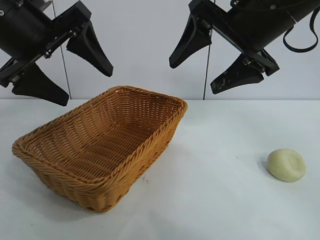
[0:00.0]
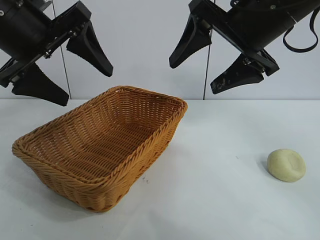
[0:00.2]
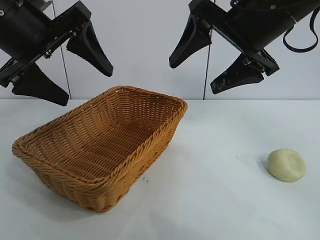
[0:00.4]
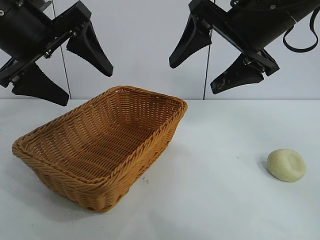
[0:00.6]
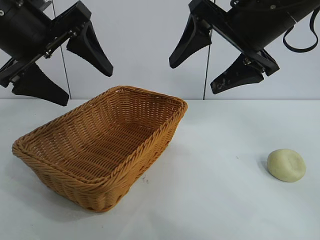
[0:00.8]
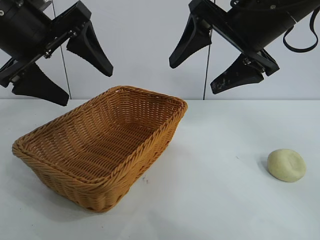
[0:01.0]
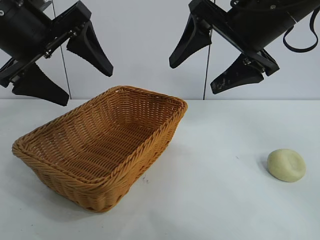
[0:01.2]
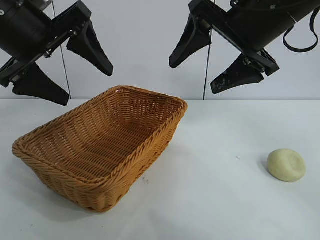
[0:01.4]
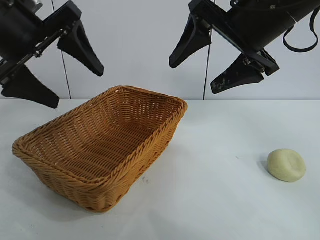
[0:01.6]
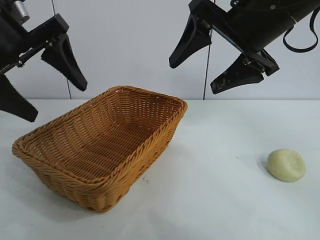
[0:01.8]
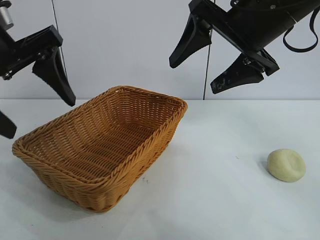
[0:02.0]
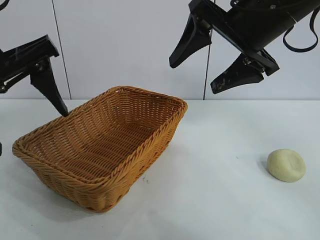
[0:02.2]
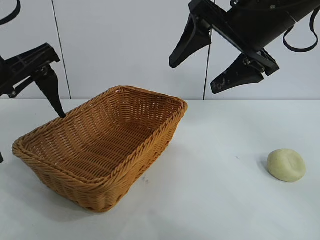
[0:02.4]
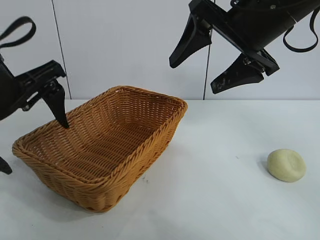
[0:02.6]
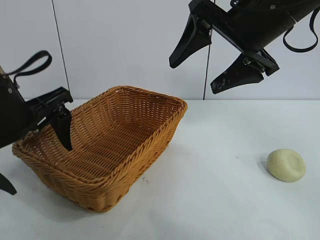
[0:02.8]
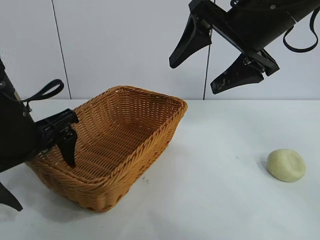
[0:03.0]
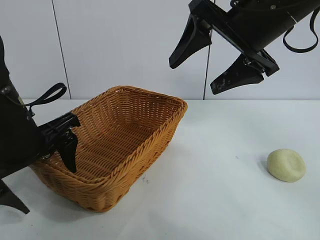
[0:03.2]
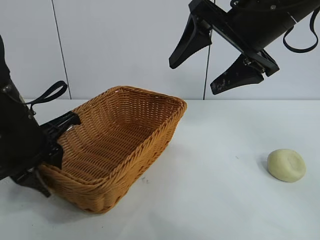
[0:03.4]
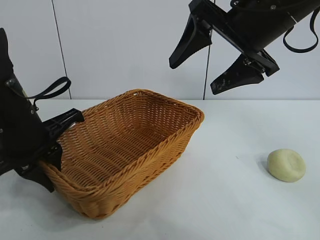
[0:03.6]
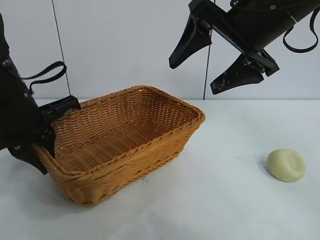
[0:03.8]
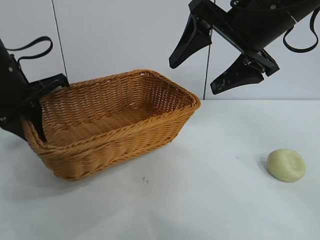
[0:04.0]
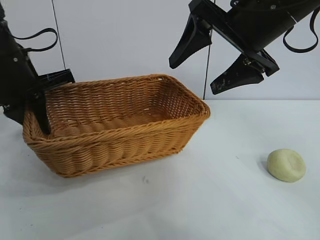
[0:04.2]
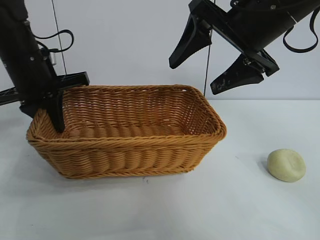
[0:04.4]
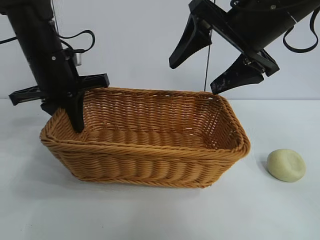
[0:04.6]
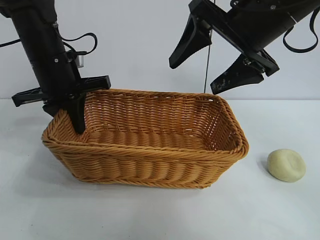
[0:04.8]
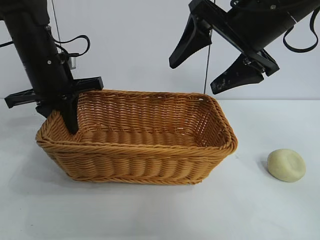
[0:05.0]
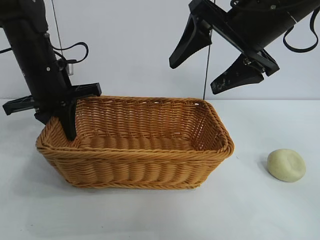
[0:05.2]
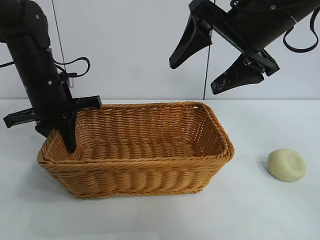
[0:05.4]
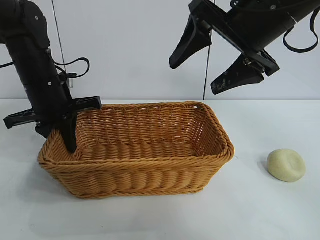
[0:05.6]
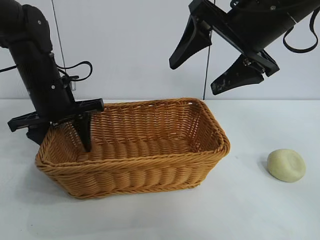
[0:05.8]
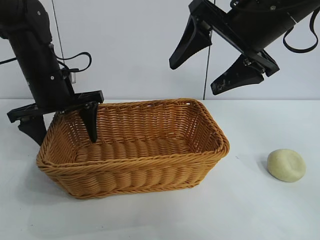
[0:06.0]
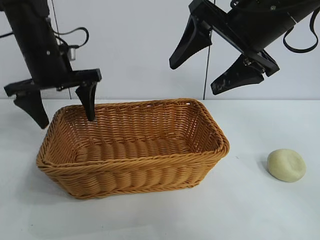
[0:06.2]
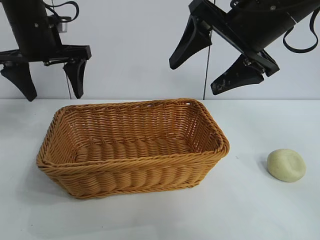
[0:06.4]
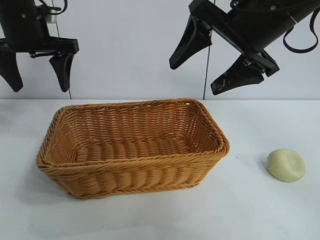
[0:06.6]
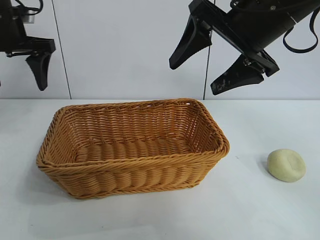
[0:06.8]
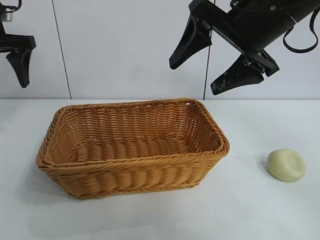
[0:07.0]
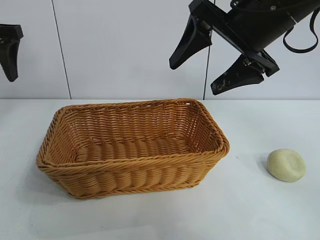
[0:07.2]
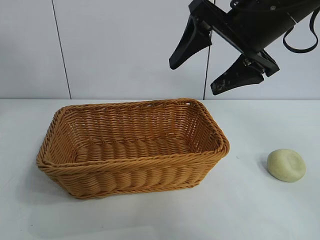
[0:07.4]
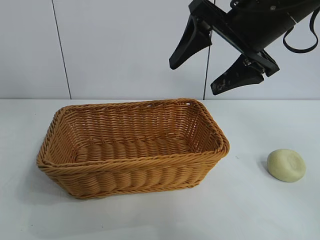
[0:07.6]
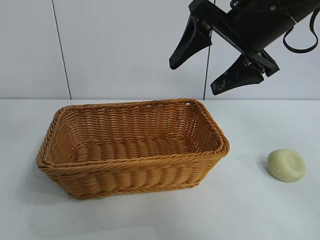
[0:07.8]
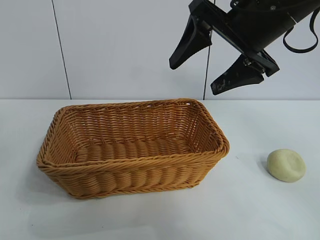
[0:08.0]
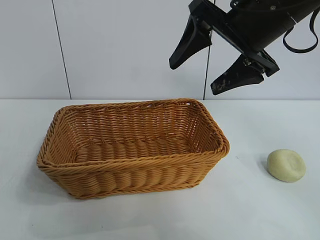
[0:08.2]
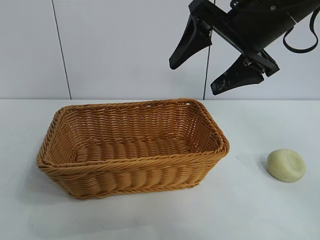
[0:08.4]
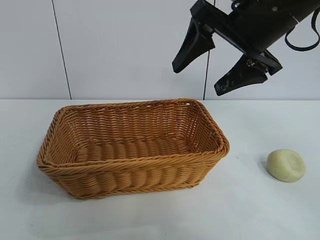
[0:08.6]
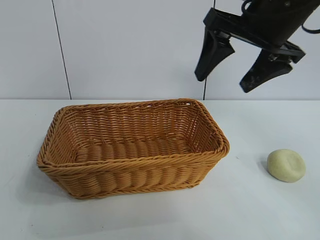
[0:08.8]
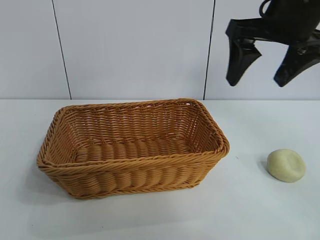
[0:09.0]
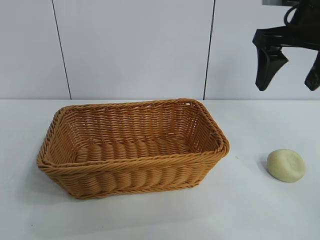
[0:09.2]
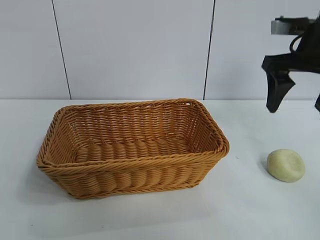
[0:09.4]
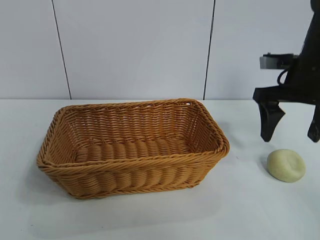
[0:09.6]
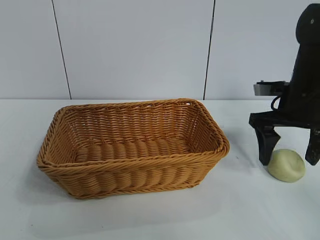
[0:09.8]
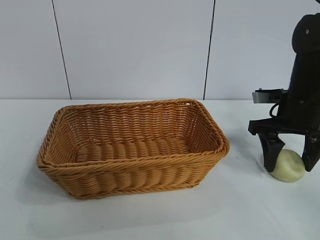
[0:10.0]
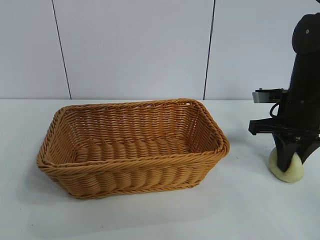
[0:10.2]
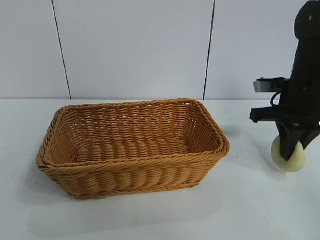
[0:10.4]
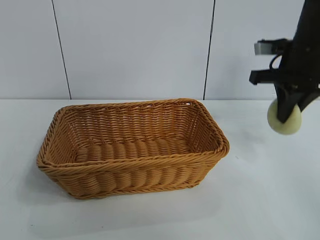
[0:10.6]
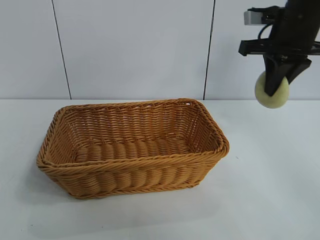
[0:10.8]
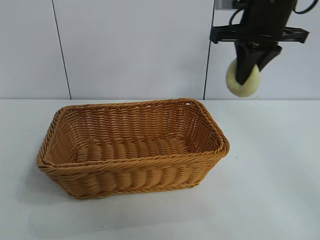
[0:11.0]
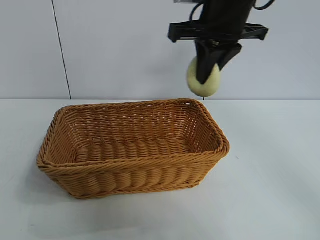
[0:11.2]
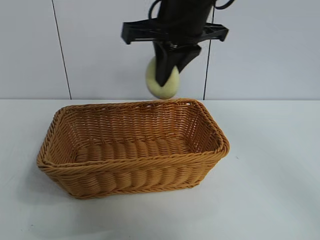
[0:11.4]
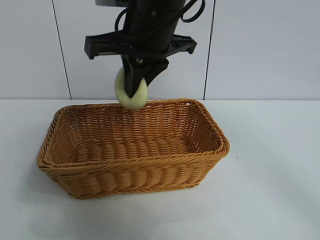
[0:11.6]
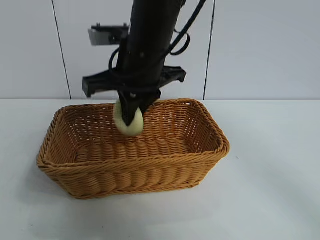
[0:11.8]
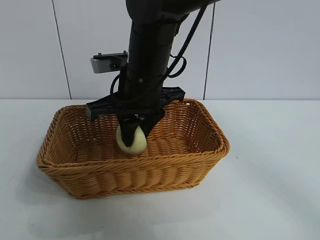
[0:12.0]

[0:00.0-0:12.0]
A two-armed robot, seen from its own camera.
Task of the whole recording: pick up the egg yolk pastry and put it into the basket.
Step, 0:01.4 to 0:03.4: Grasp the basket with left gripper.
Step, 0:03.6 to 0:05.8: Place the basket in the center of view with left gripper.
Step, 0:06.0 to 0:10.0: Grasp egg yolk pastry with right gripper.

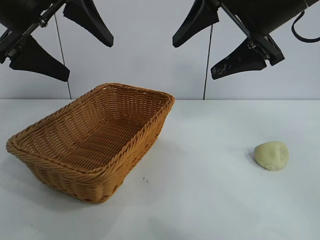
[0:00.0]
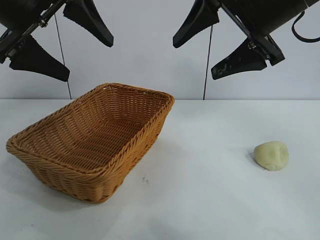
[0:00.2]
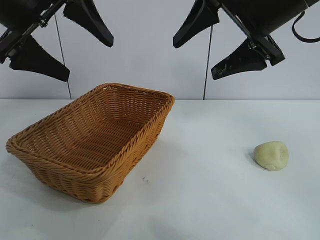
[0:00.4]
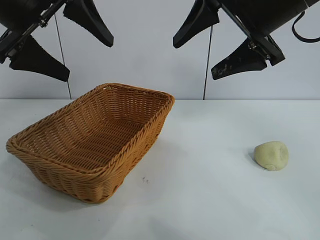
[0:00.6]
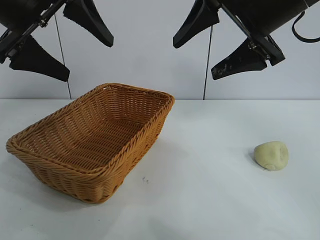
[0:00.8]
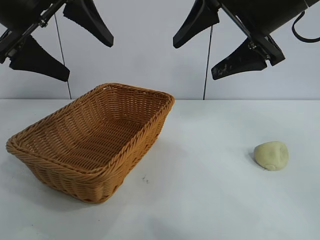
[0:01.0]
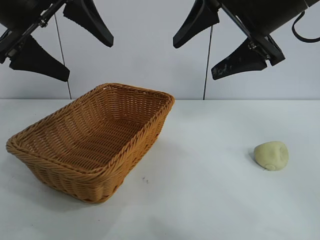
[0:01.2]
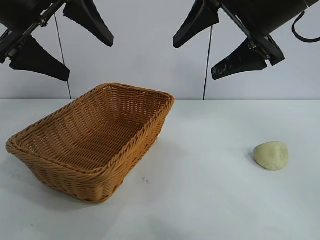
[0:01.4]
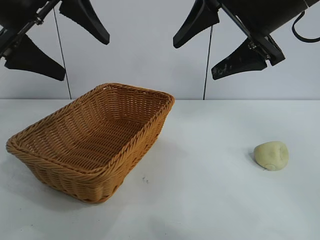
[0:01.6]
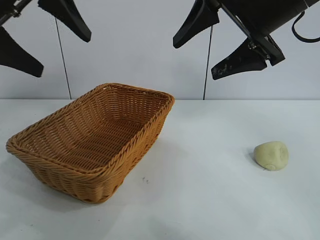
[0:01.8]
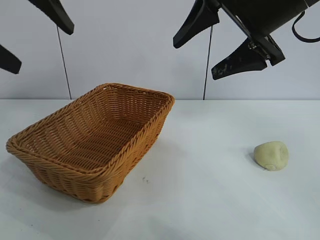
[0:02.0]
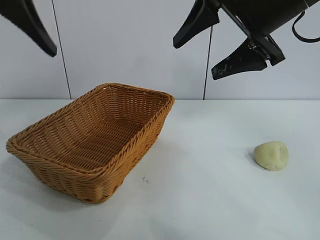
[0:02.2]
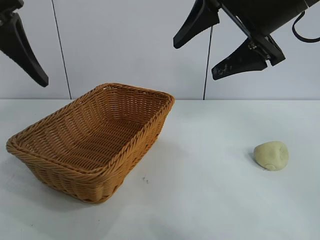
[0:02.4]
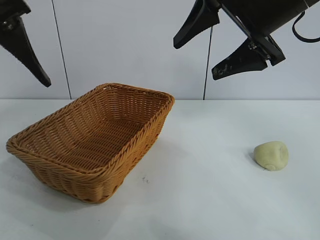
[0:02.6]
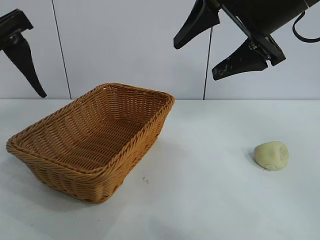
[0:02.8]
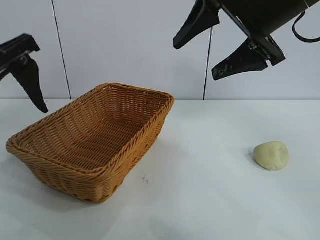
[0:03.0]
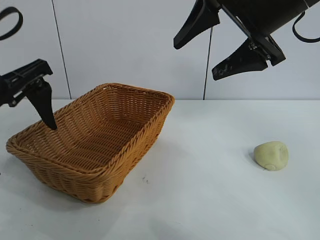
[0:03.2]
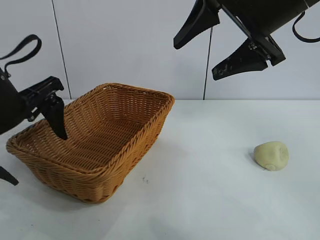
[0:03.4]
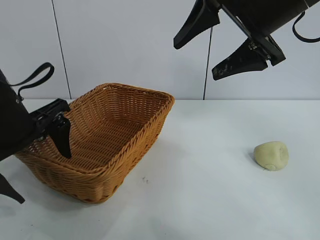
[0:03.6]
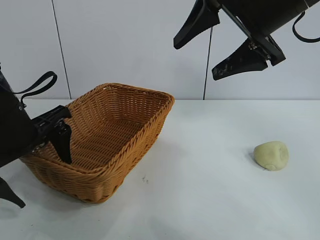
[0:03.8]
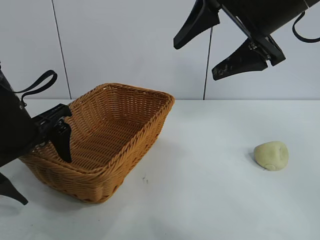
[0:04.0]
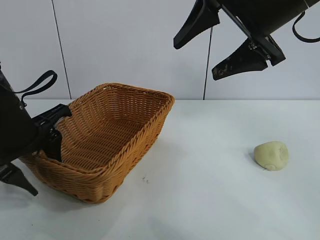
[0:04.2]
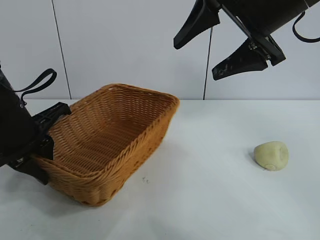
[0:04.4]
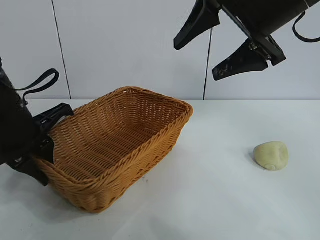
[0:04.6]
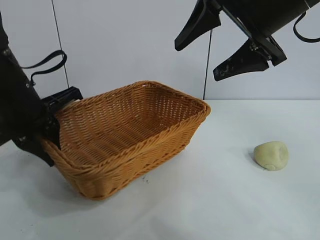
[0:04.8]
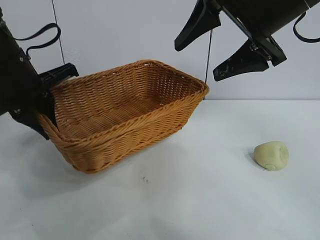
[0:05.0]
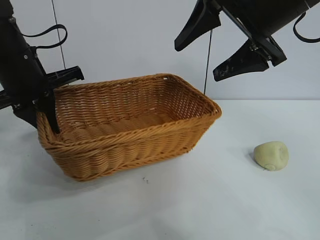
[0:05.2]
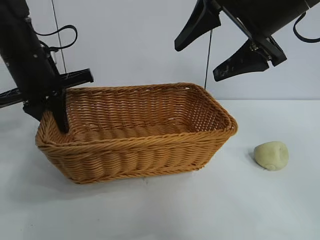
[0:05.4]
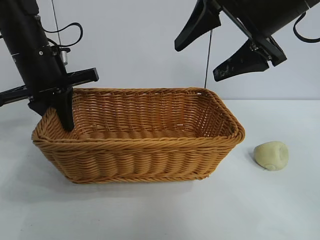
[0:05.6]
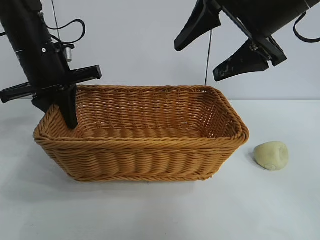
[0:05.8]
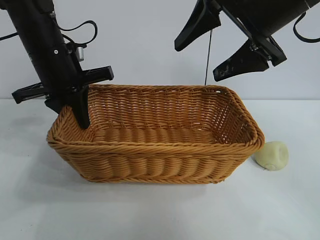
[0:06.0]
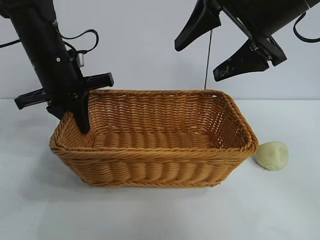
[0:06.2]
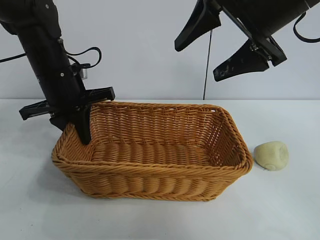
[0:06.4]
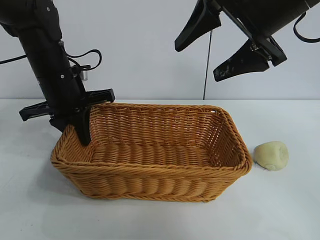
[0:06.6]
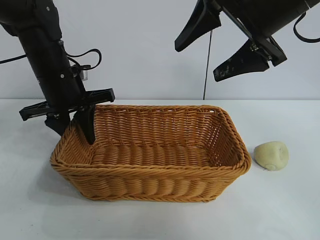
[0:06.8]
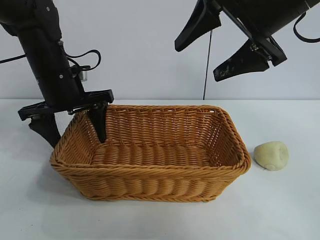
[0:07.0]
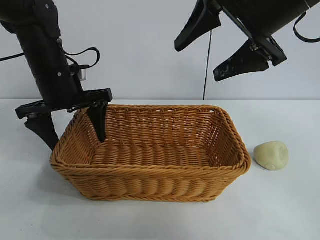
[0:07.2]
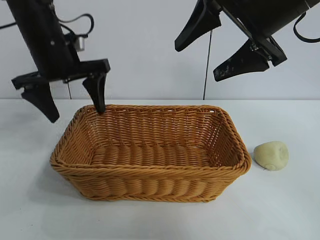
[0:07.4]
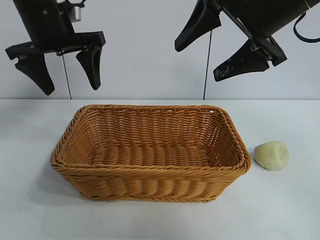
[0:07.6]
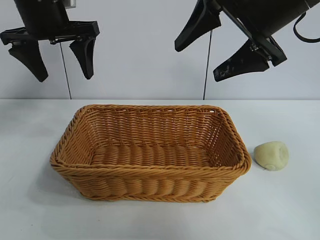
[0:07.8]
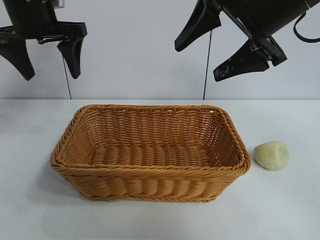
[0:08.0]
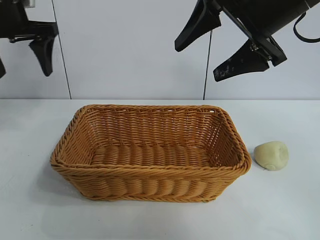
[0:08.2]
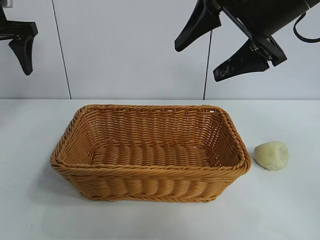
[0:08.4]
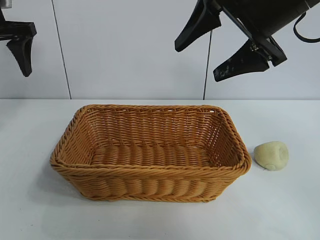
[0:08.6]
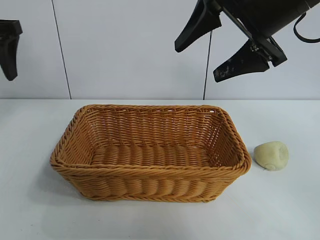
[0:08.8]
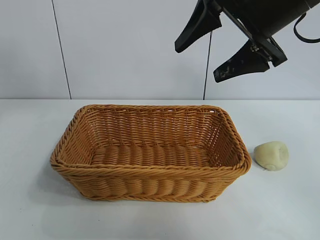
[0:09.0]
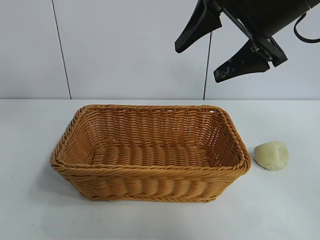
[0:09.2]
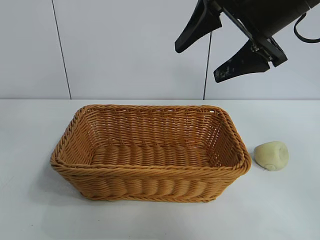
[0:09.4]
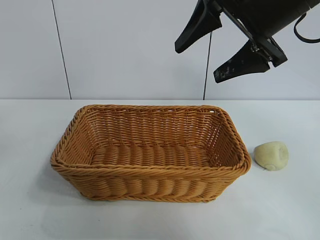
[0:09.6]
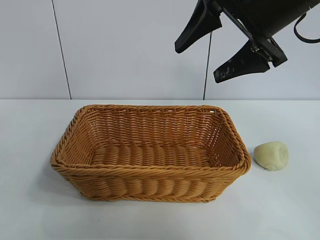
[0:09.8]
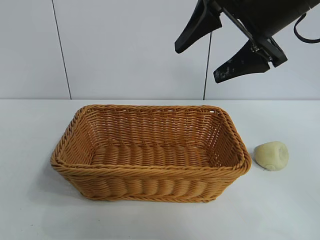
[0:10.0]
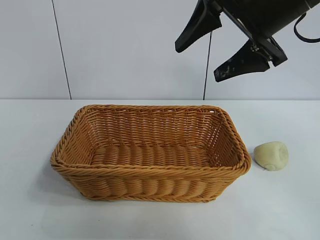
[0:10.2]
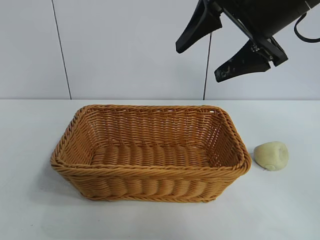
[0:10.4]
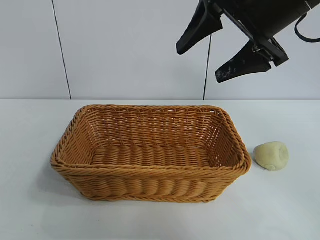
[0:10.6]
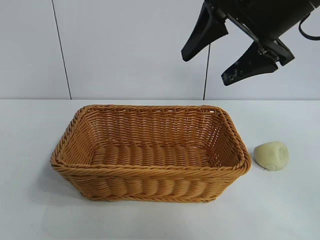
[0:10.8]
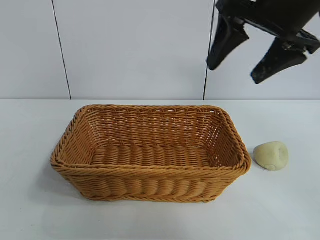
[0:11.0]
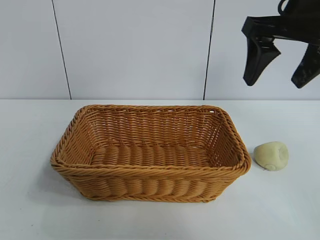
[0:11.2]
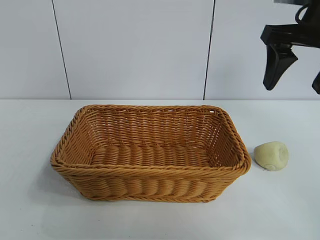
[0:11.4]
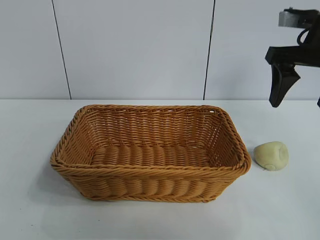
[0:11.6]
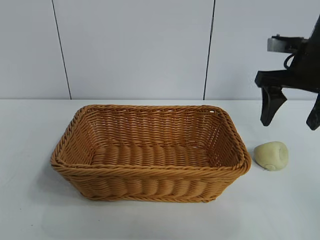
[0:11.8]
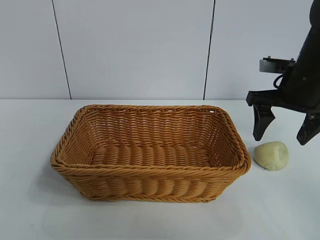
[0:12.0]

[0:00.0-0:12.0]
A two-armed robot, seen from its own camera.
Task of the whole recording: pick up the egg yolk pastry and put it into the basket.
Step, 0:01.4 to 0:04.4: Grasp the basket with left gripper.
Step, 0:04.6 to 0:06.8: Place the basket in the center of view with left gripper.
